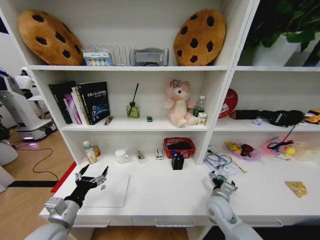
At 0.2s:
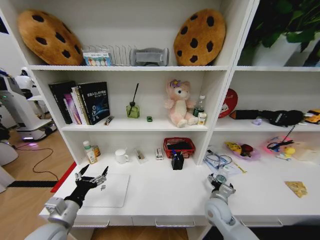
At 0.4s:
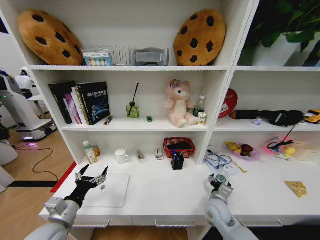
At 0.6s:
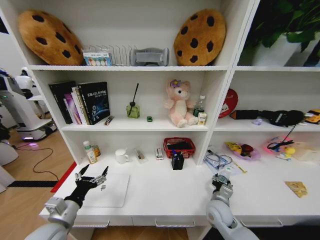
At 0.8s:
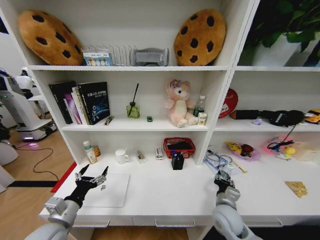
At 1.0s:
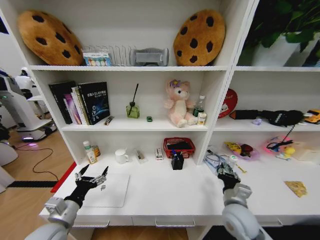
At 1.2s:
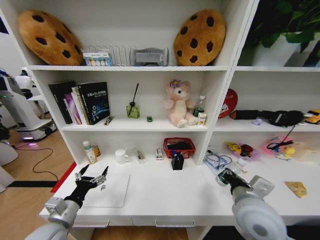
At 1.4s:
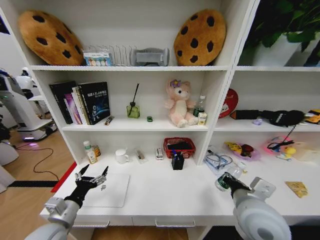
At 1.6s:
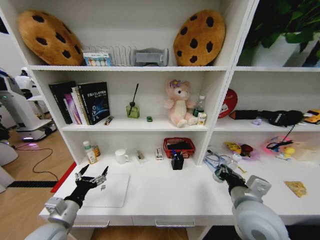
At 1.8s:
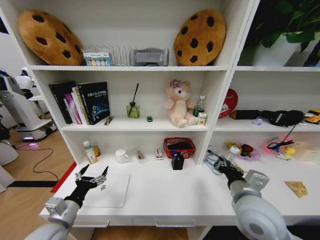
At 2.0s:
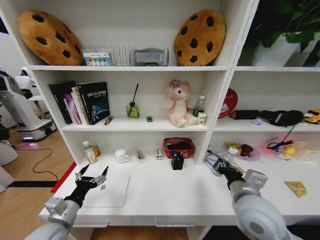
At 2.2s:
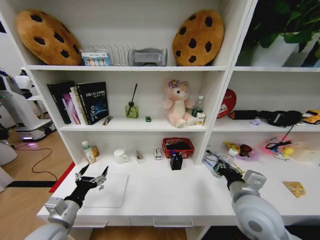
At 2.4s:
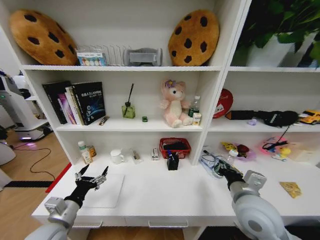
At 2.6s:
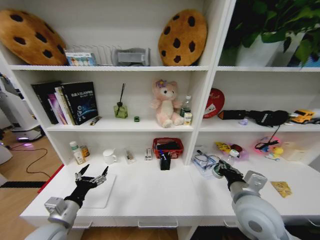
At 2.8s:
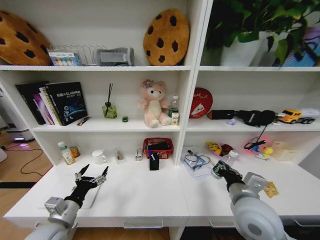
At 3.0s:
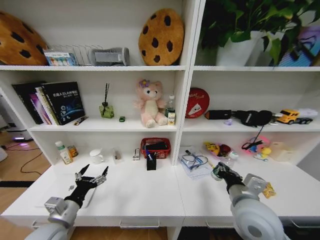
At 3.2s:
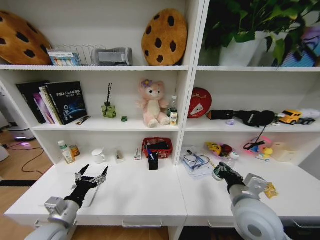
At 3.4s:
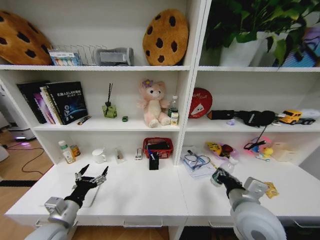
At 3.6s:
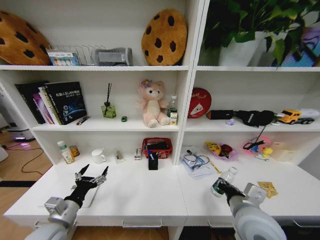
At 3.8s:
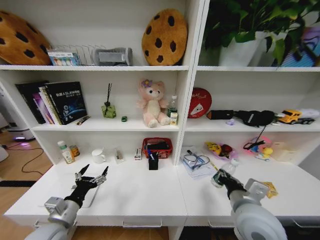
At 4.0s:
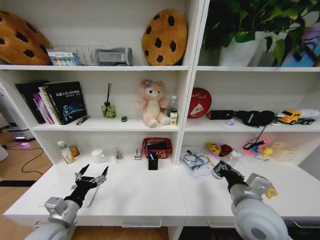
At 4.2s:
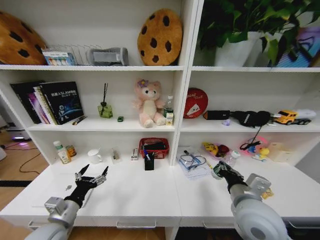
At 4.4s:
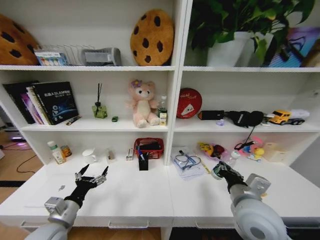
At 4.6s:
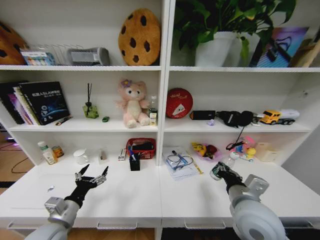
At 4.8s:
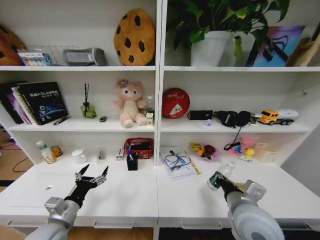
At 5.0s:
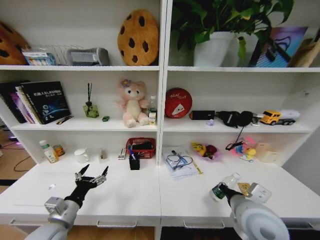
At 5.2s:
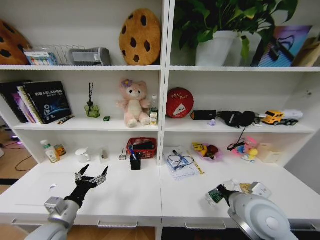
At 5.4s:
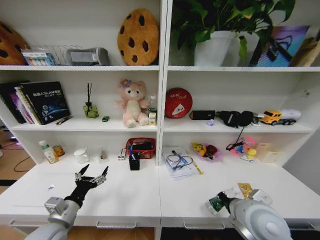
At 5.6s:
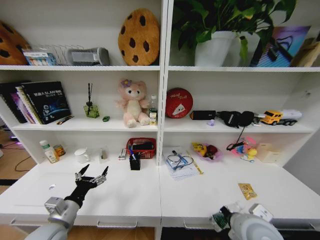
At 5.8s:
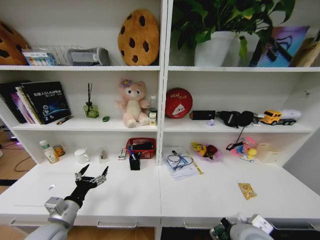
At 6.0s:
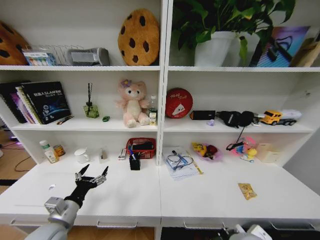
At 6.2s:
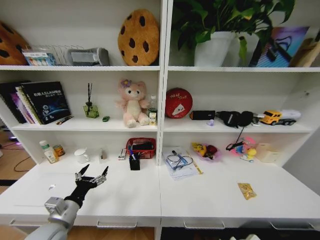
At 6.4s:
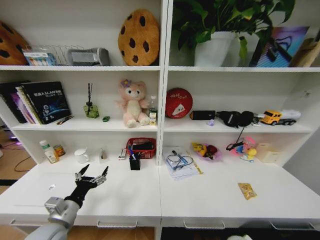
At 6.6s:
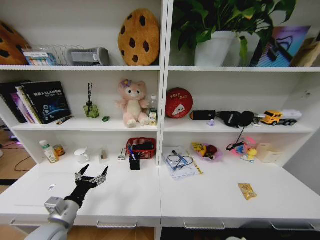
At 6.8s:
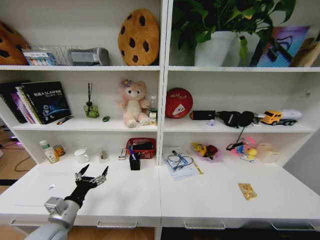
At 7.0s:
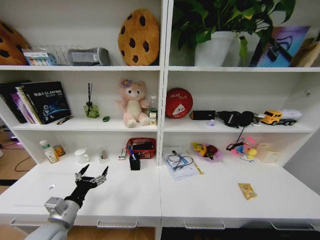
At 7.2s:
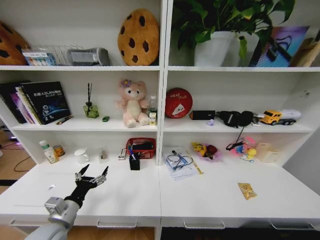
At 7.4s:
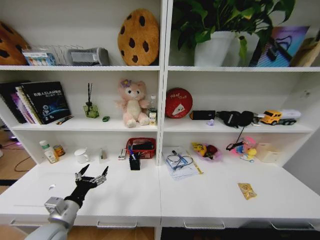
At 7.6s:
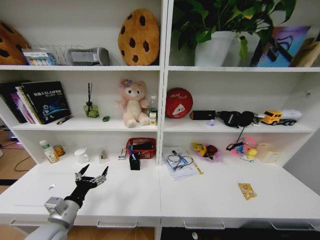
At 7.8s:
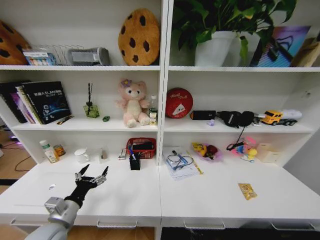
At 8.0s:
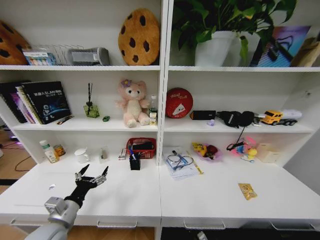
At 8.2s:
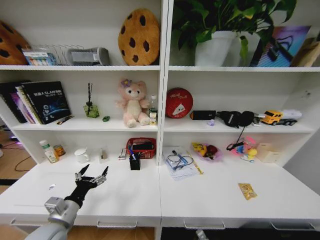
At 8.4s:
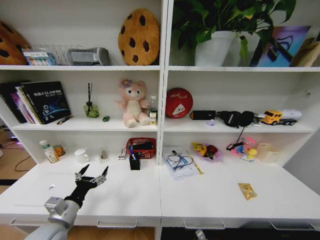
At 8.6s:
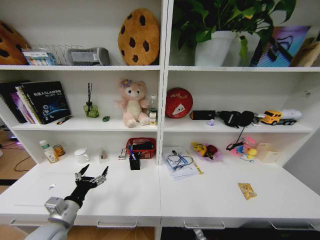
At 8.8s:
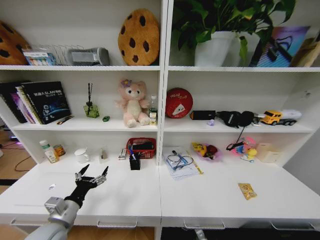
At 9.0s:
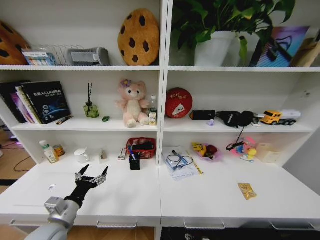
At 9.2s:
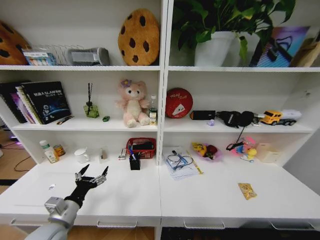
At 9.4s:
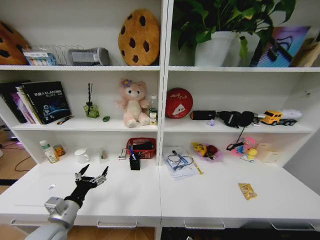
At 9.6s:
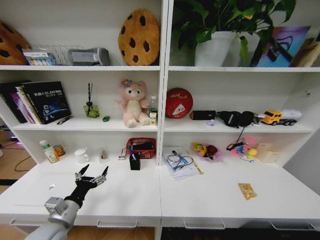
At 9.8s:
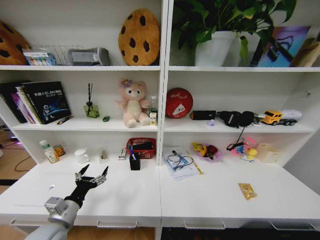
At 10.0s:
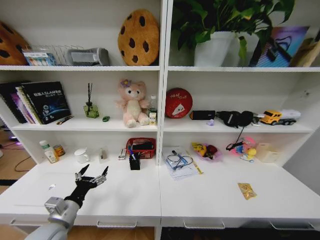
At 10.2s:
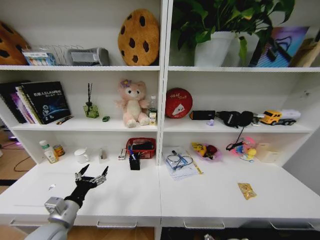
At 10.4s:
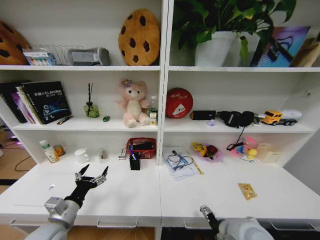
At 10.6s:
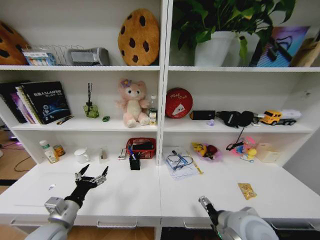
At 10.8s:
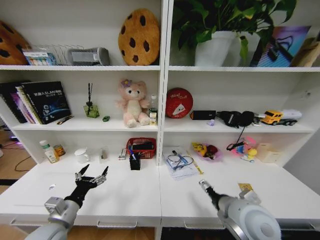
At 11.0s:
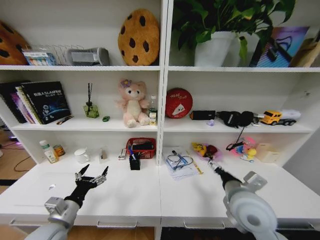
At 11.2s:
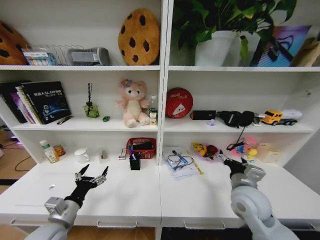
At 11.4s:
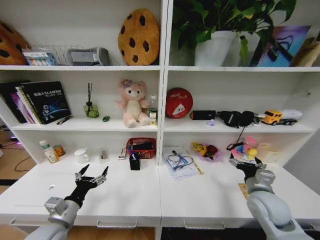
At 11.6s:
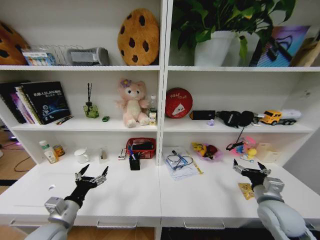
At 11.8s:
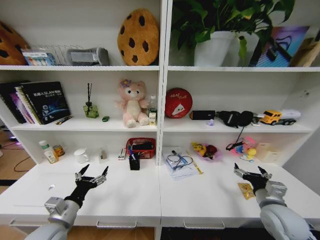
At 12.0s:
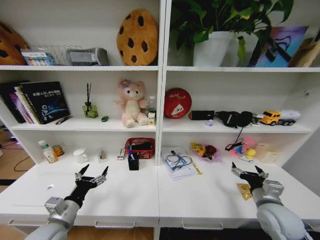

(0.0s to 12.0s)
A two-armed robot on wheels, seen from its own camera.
Task of the whole recording: Organize the objects on the table.
0.0s - 1.6s: The right gripper heads upward and backward, covering approximately 20 cm, and closes.
4.4s - 6.0s: The right gripper moves backward and downward, some 10 cm.
6.0s - 7.6s: The right gripper travels downward by some 40 cm.
9.0s - 10.4s: The right gripper goes roughly 50 cm upward.
10.4s - 12.0s: The right gripper goes about 15 cm to the right.

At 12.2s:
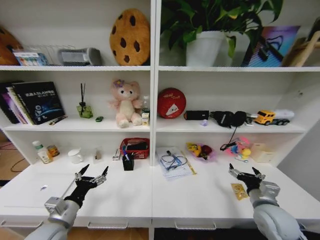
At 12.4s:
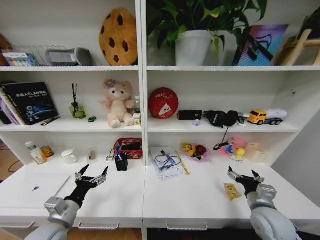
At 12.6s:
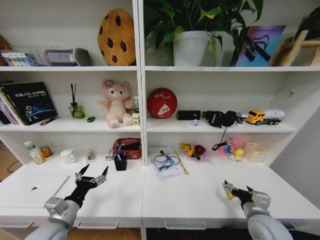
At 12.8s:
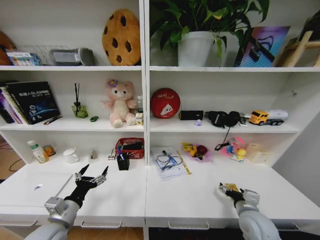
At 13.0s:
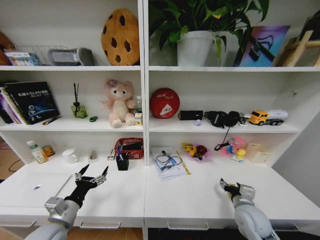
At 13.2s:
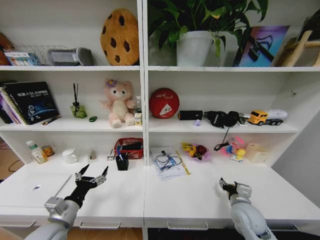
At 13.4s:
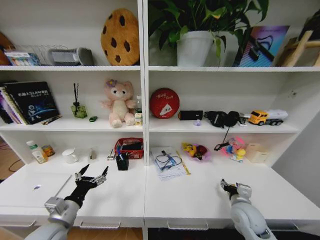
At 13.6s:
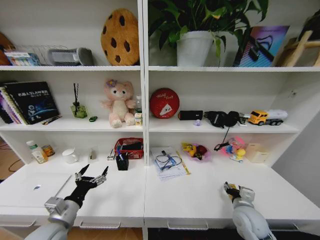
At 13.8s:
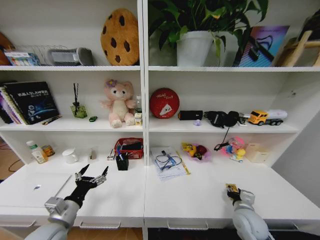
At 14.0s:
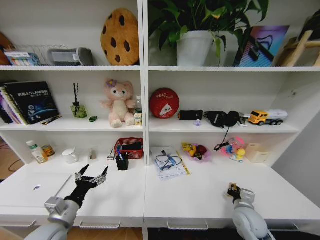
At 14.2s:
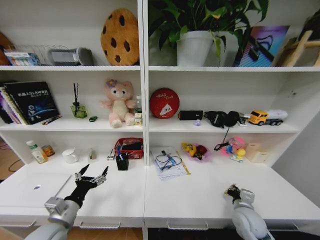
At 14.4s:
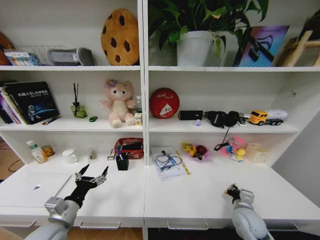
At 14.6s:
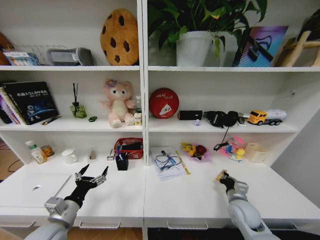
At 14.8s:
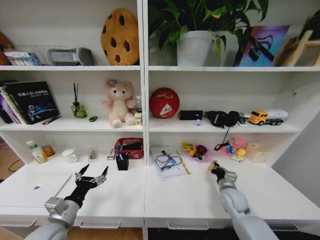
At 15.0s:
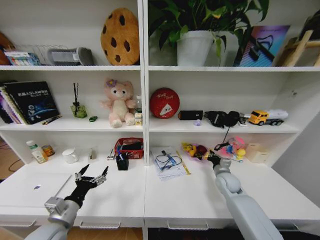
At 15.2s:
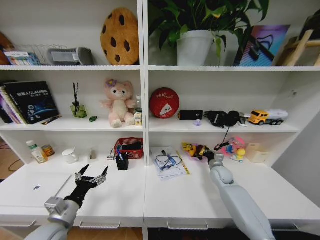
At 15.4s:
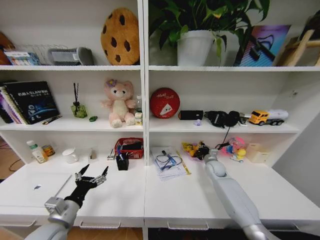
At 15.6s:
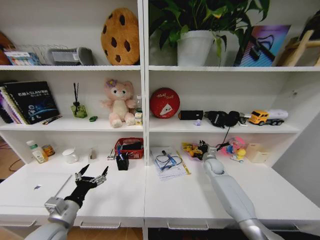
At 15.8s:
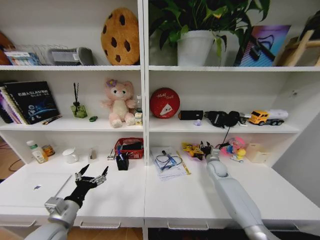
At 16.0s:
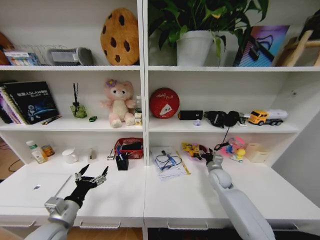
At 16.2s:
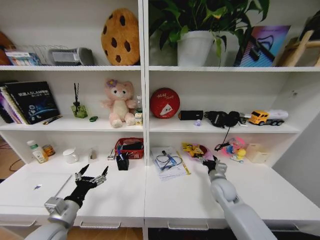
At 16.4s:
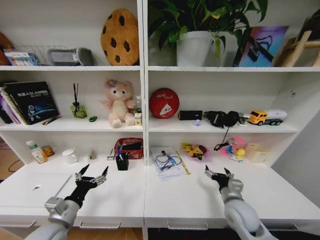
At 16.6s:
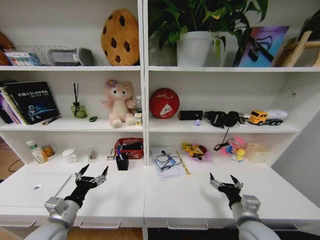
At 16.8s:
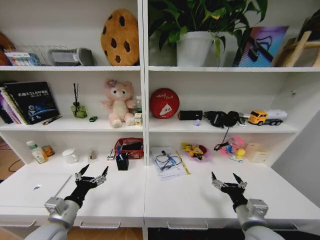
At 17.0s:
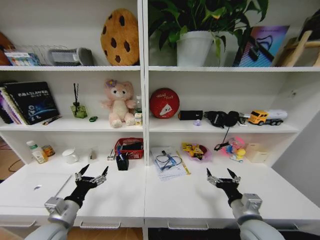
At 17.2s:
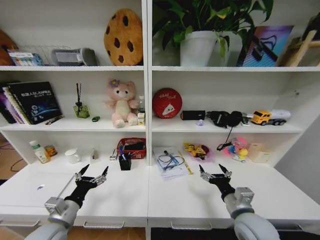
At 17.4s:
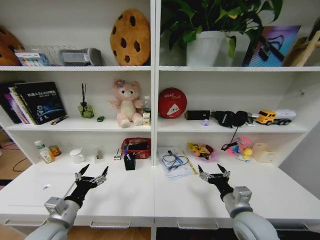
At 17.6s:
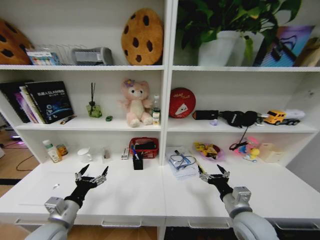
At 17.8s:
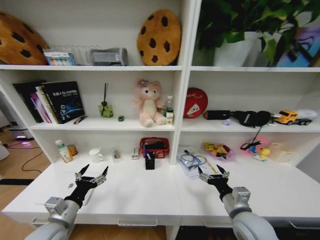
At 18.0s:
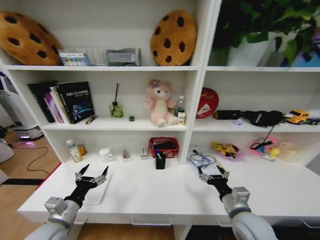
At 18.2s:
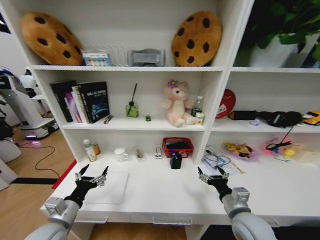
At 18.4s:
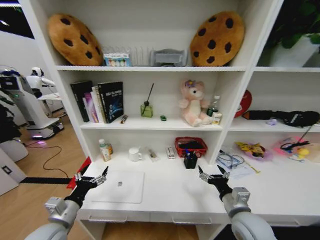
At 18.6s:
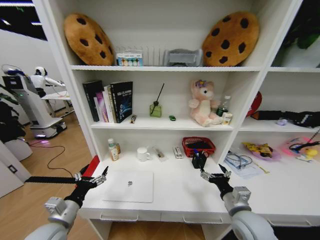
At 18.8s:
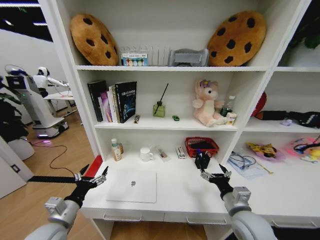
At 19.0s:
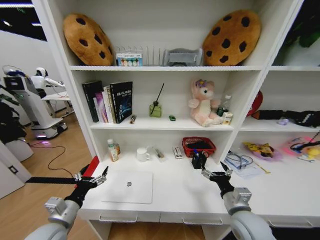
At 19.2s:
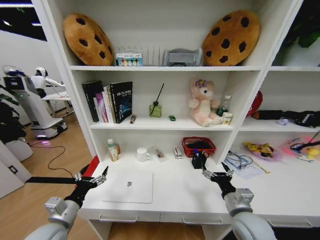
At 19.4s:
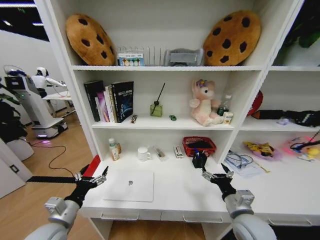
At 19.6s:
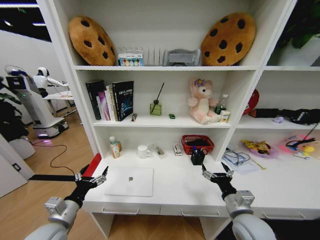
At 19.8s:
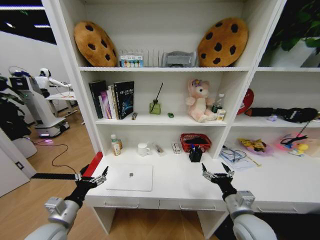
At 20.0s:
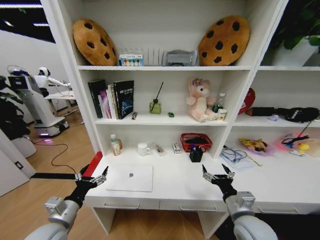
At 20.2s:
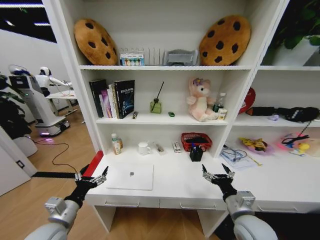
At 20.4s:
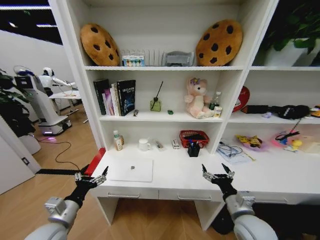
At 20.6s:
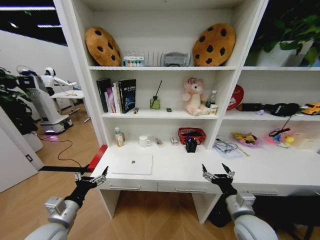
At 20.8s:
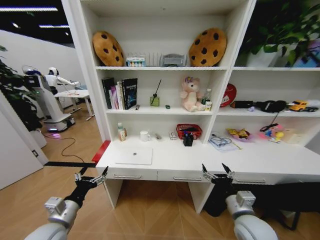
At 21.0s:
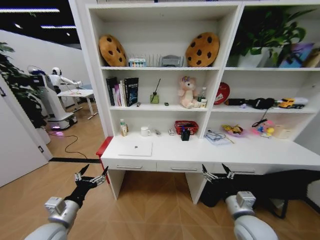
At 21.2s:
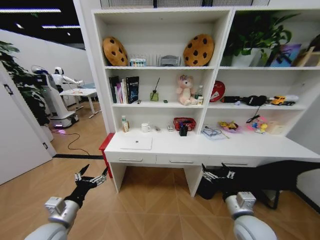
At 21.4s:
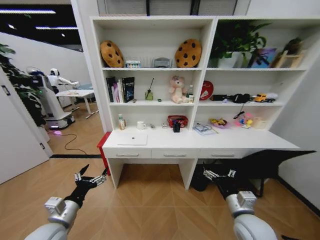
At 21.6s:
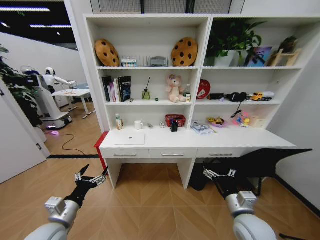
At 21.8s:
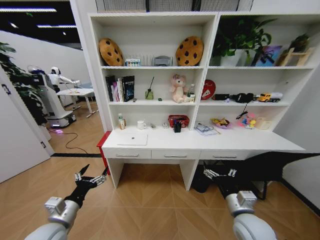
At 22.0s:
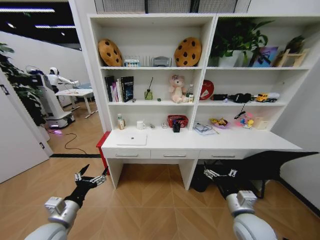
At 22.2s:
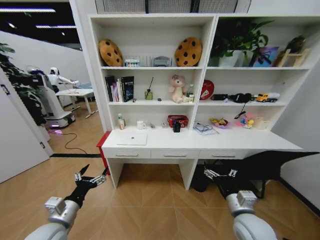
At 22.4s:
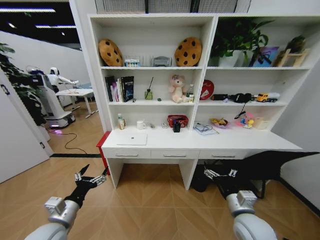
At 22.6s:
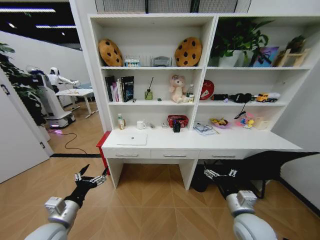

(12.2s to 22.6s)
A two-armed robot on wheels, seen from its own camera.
Task of the whole recording: Organize the objects on the table.
12.2s - 13.6s: The right gripper heads downward, covering approximately 5 cm.
13.6s - 15.2s: The right gripper is displaced forward by roughly 20 cm, and closes up.
15.2s - 16.6s: The right gripper shifts roughly 25 cm backward, and opens.
